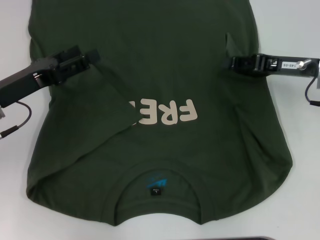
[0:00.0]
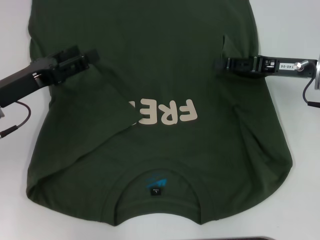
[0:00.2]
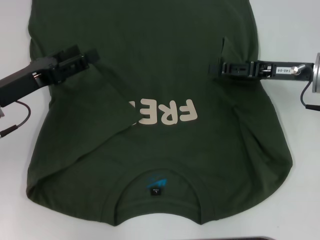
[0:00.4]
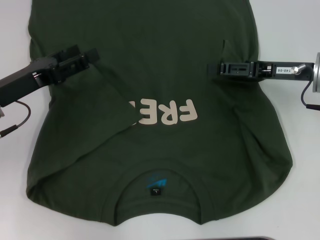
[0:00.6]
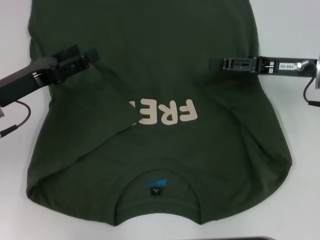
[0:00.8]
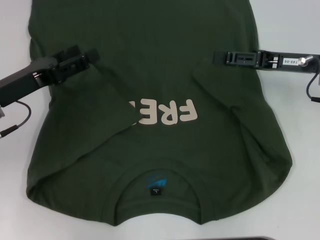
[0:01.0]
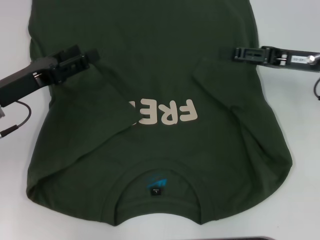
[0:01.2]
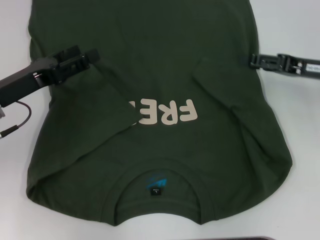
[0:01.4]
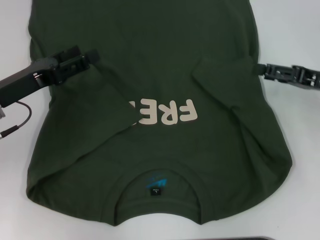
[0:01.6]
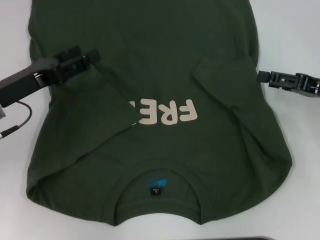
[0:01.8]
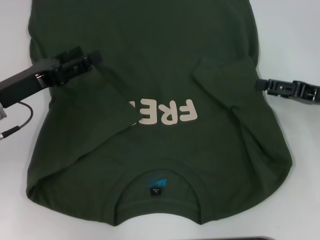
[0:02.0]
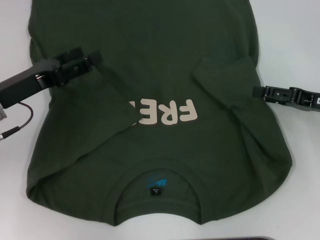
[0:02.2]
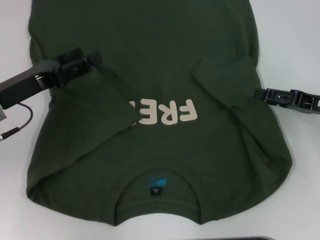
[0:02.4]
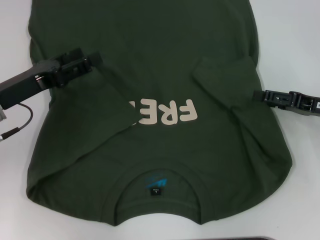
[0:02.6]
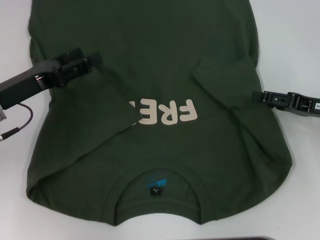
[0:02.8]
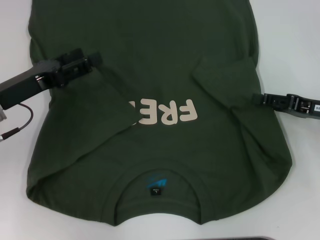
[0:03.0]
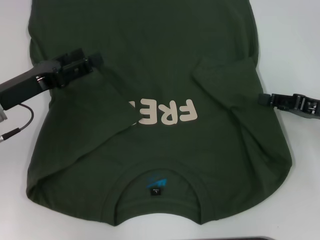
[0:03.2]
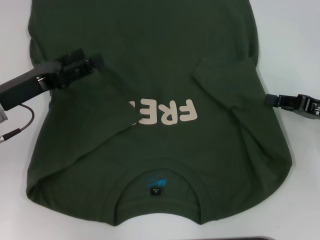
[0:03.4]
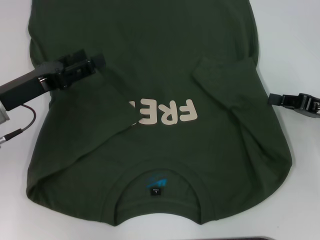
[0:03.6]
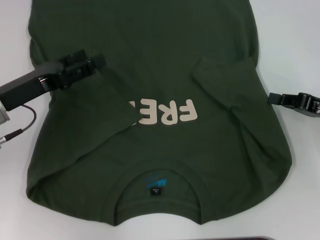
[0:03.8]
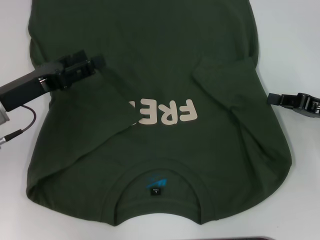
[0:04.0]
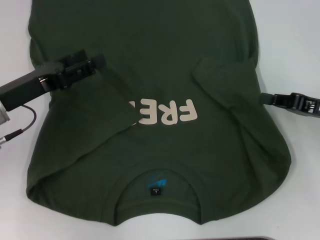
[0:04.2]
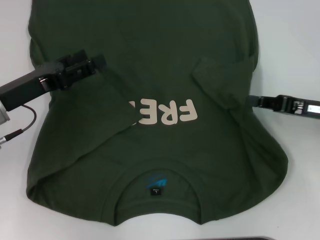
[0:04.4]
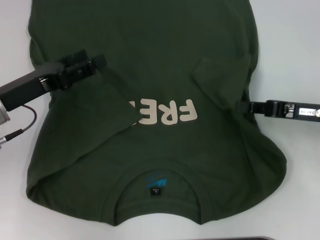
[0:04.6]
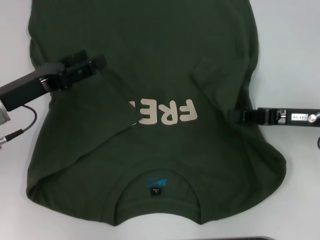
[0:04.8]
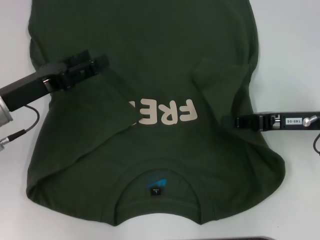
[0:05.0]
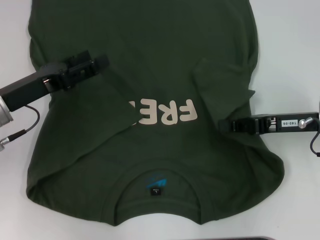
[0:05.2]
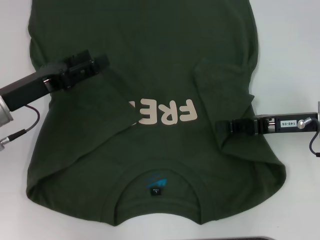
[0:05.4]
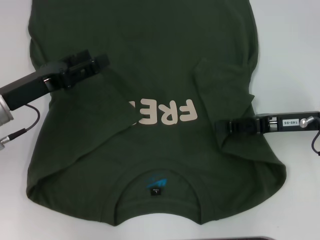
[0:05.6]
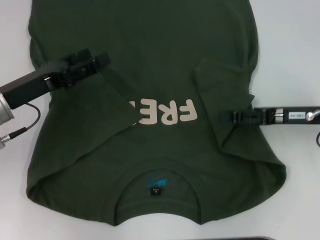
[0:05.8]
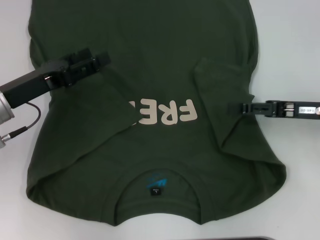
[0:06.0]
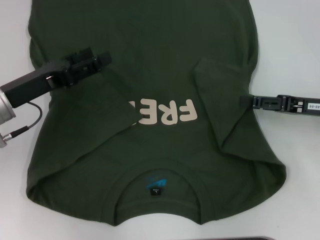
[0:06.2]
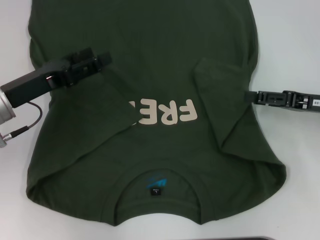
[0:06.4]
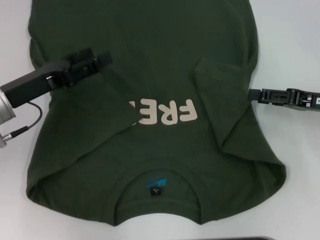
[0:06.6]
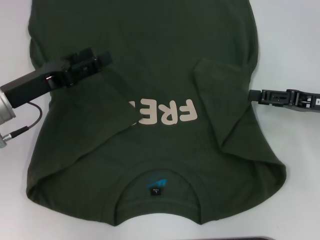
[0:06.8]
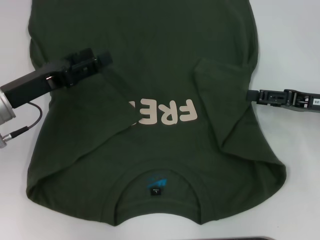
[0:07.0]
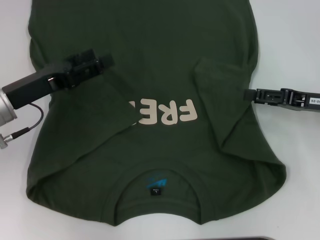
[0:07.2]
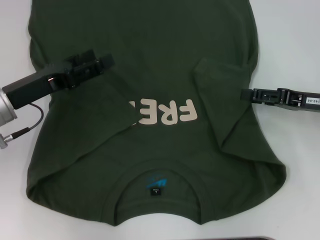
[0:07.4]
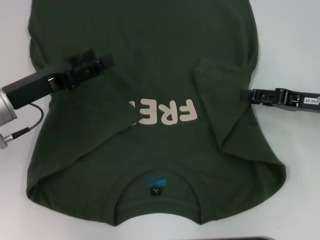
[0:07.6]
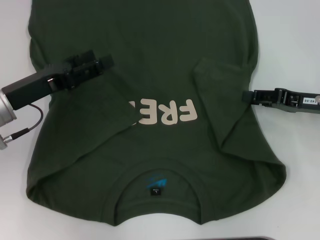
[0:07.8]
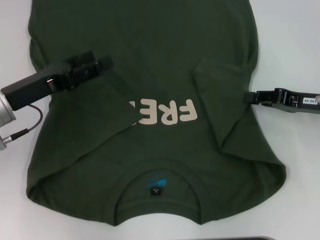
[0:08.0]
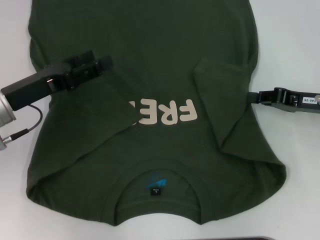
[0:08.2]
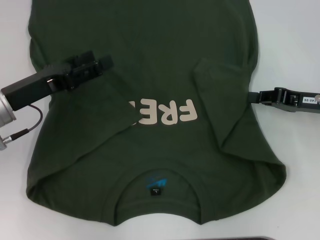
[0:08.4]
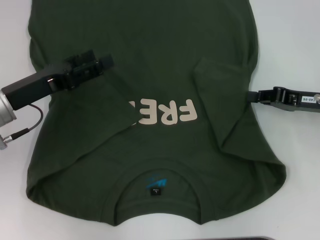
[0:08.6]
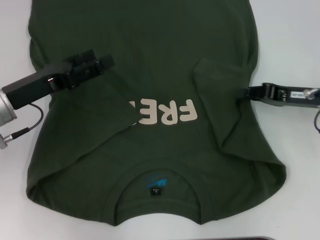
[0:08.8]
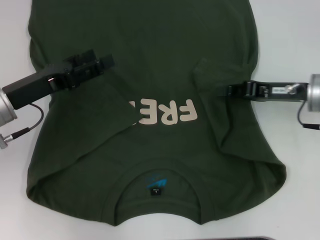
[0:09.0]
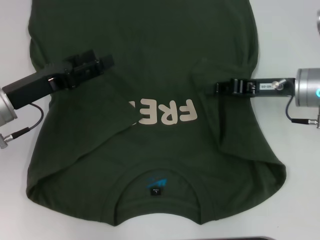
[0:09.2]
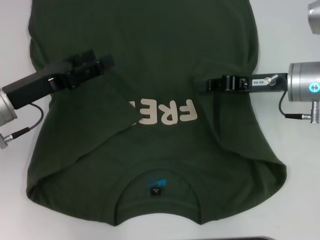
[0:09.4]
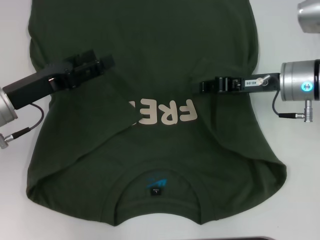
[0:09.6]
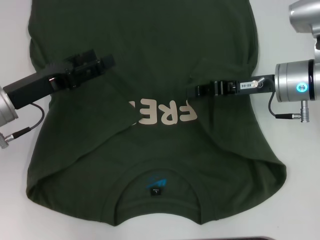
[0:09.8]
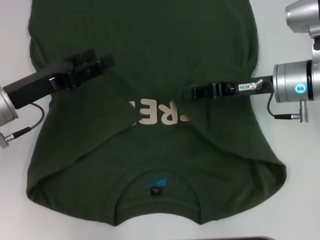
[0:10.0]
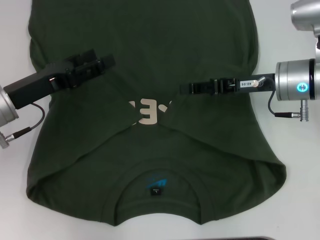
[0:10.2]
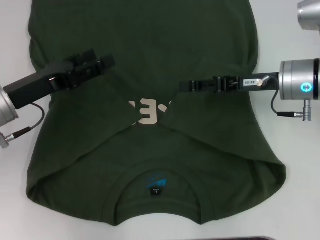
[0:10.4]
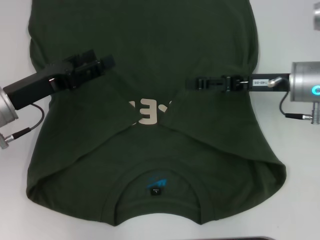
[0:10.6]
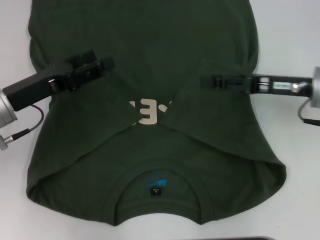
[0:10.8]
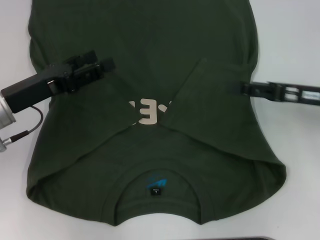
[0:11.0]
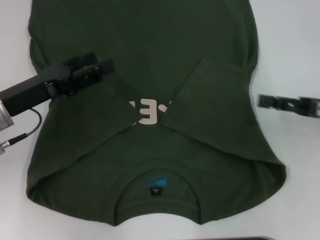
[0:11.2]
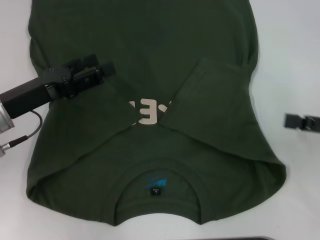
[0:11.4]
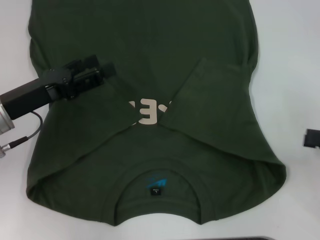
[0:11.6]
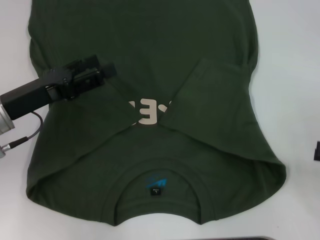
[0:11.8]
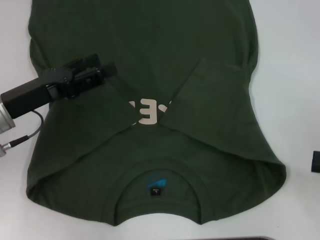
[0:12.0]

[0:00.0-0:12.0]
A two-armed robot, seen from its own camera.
Step, 0:00.0 to 0:10.8: Fold the bottom right sleeve with your right hand.
0:00.0 to 0:01.6: The right gripper heads to the right, covering about 5 cm, and opens.
0:01.6 to 0:03.0: The grippers make only small movements.
0:03.0 to 0:04.4: The right gripper closes up.
0:04.4 to 0:06.0: The right gripper opens.
0:06.0 to 0:07.6: The grippers move only a little.
0:07.6 to 0:09.0: The right gripper changes place by about 5 cm, and closes its fingers.
0:09.0 to 0:10.4: The right gripper opens up.
0:10.4 to 0:12.0: The right gripper heads to the right and backward, covering approximately 25 cm, and opens up.

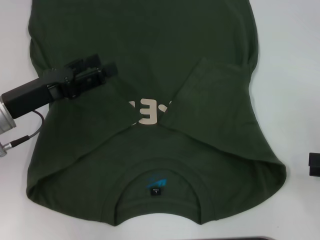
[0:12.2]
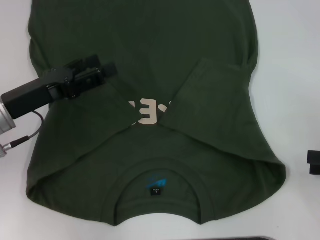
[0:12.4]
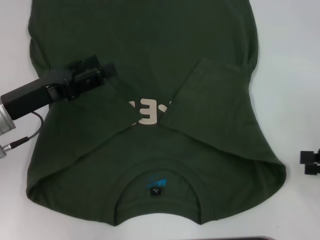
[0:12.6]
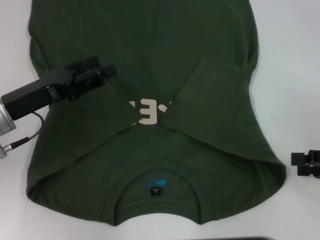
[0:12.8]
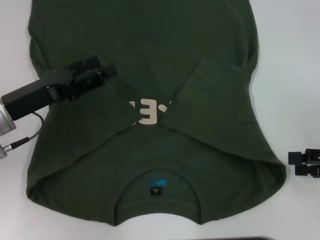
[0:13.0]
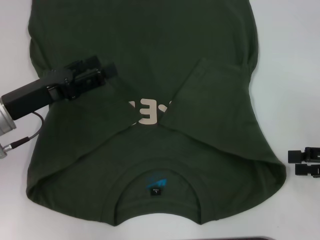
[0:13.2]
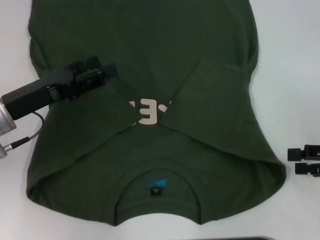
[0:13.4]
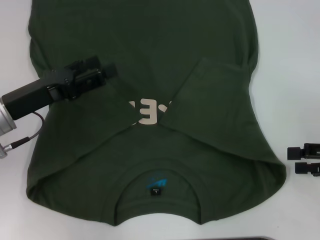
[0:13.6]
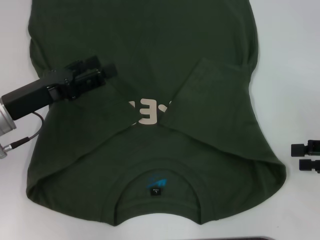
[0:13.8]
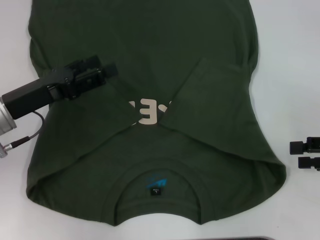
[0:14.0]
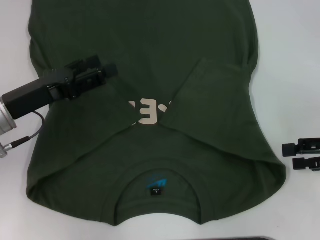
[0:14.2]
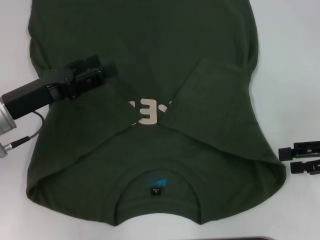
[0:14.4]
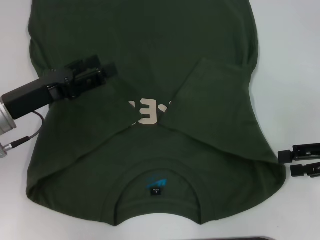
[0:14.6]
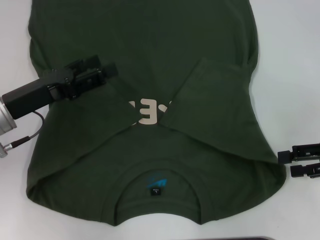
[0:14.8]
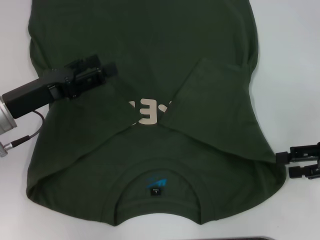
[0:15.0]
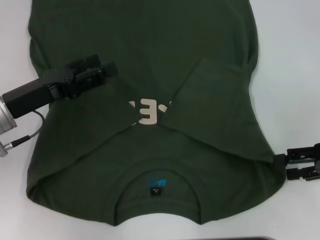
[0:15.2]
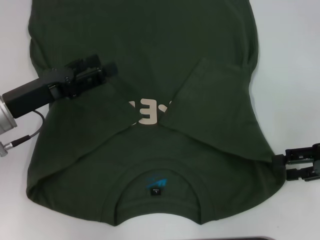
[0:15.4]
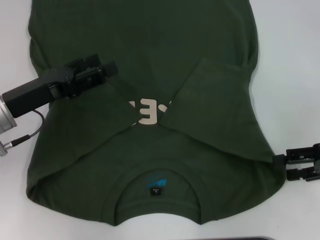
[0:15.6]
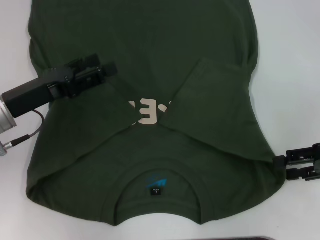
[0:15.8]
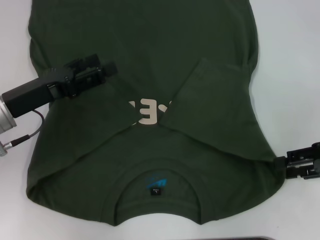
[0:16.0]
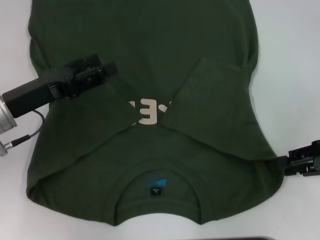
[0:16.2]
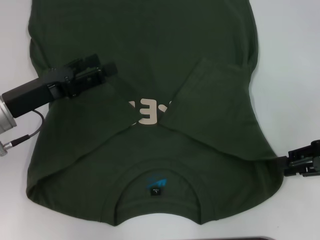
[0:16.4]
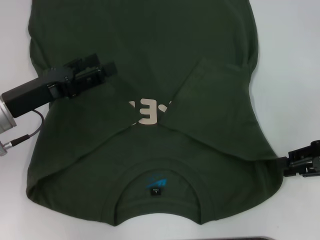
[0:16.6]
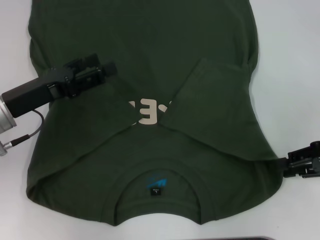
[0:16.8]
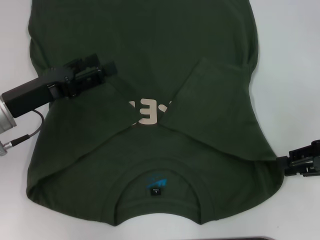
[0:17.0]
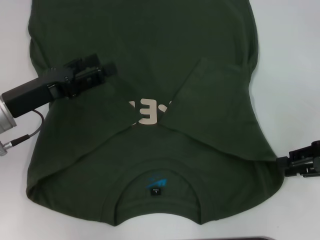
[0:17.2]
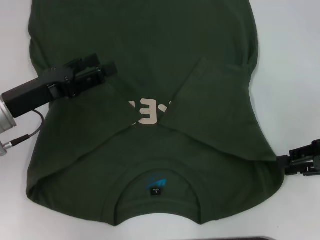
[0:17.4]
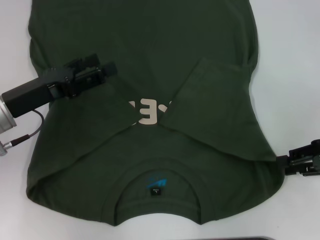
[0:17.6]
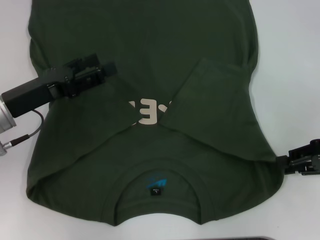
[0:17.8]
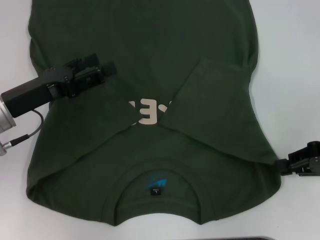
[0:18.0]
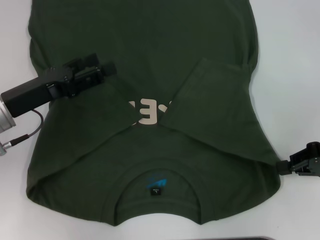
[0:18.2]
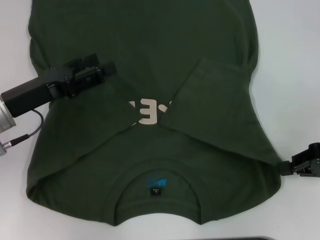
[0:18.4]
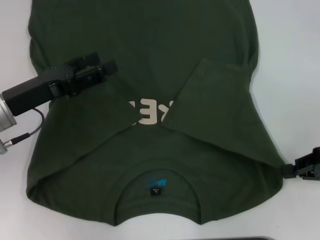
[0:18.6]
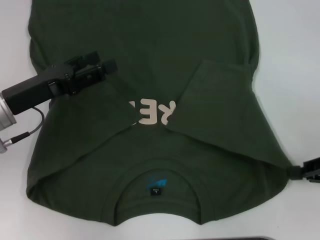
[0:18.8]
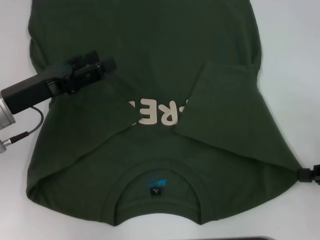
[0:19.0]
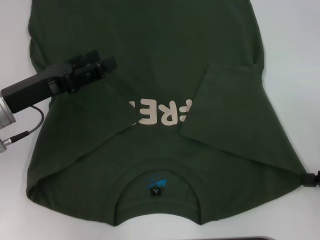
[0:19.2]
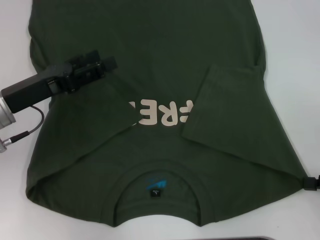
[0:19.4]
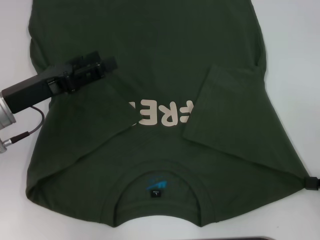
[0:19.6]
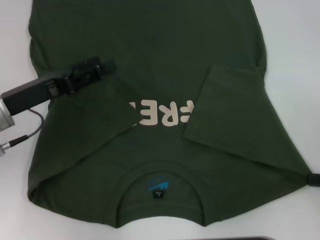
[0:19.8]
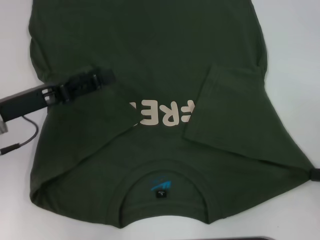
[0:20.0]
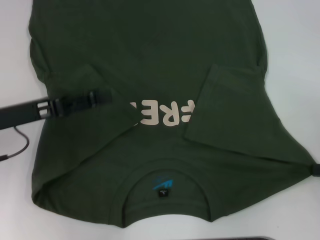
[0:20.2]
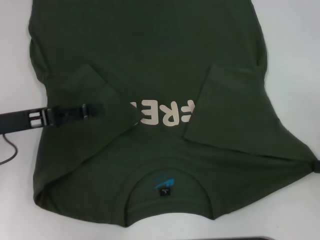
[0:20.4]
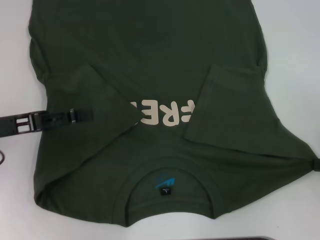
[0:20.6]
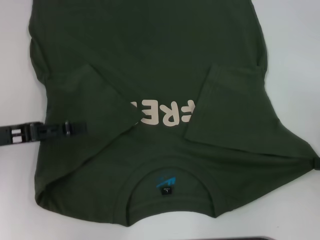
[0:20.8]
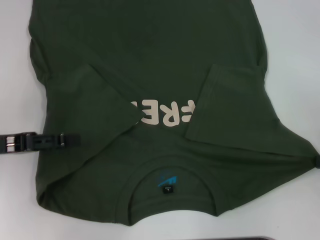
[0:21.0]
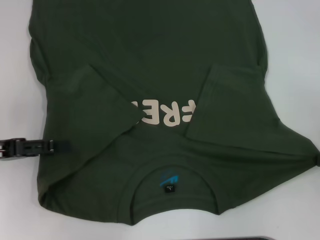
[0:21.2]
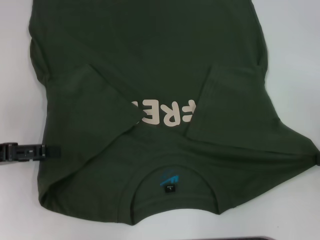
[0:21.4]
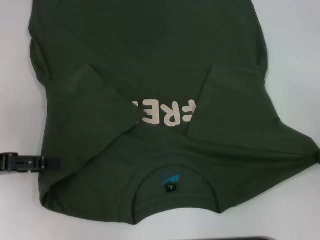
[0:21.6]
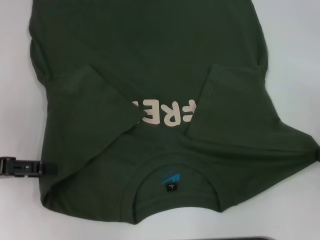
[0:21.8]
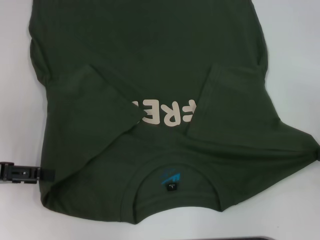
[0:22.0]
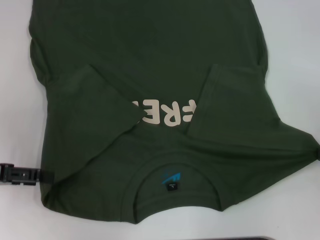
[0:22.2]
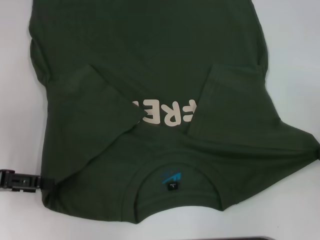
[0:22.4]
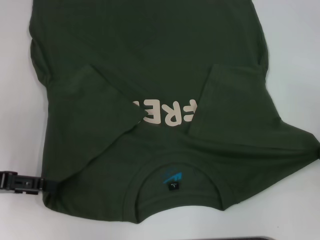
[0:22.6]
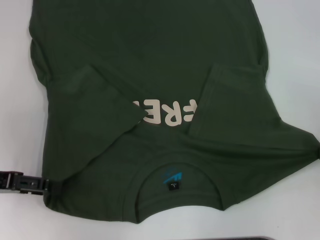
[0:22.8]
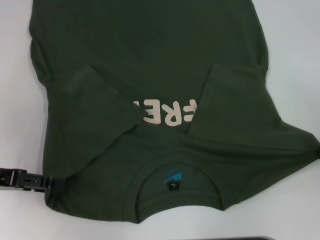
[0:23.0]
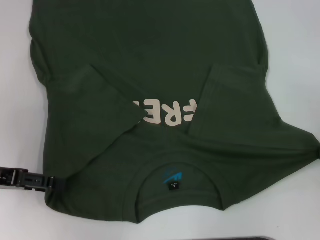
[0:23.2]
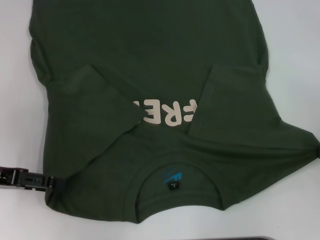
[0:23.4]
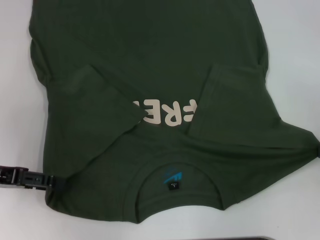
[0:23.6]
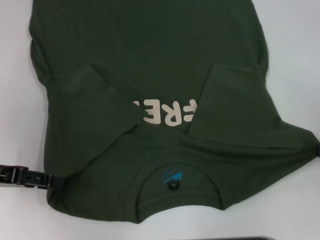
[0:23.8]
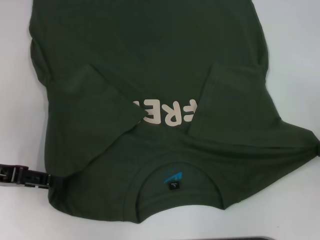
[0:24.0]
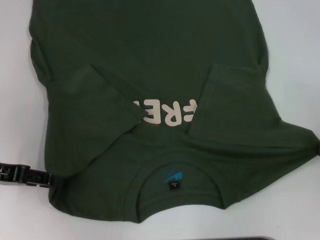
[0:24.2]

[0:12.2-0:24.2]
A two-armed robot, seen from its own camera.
Step, 0:12.2 to 0:18.4: Grab the bottom right corner with your right hand.
0:12.2 to 0:13.8: The grippers stay close to where they were, moving slightly.
0:13.8 to 0:15.2: The grippers stay close to where they were, moving slightly.
0:15.2 to 0:16.6: The right gripper closes.
0:16.6 to 0:18.2: Both grippers stay put.
0:18.2 to 0:19.8: The right gripper goes roughly 5 cm backward.
0:19.8 to 0:21.2: The left gripper moves to the left, some 5 cm.
0:21.2 to 0:24.2: The grippers move only a little.
